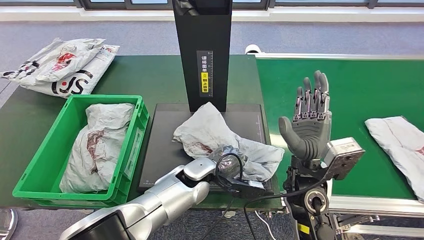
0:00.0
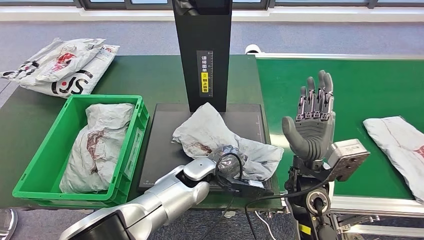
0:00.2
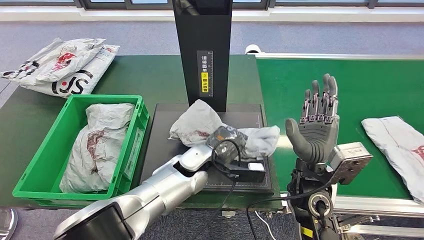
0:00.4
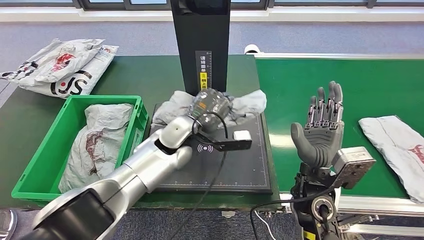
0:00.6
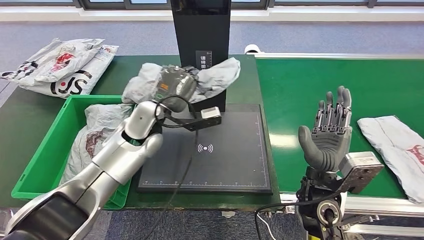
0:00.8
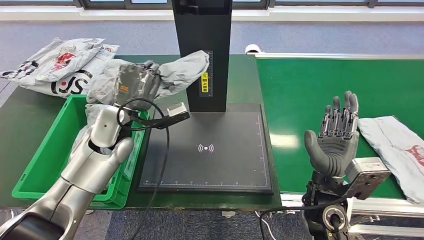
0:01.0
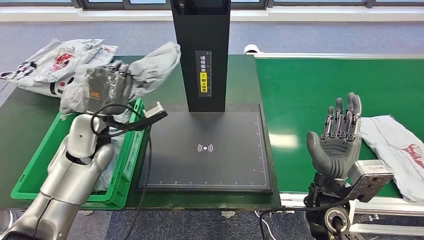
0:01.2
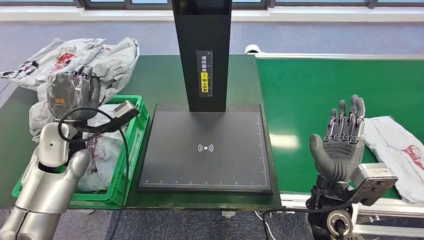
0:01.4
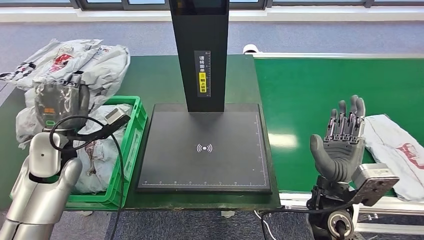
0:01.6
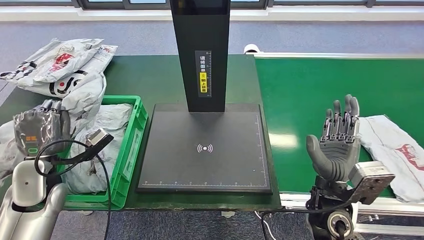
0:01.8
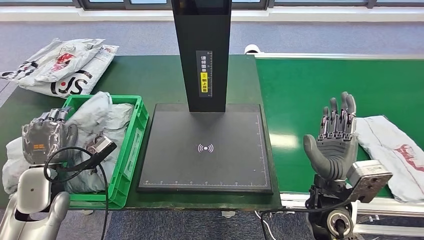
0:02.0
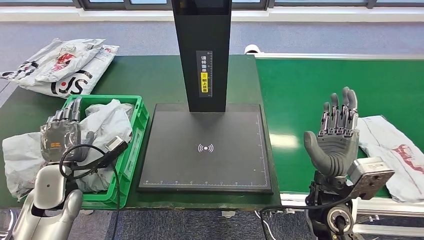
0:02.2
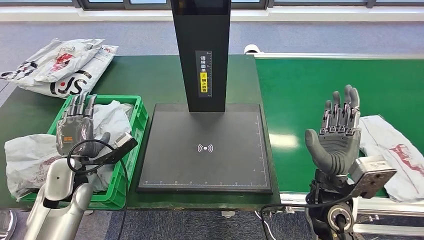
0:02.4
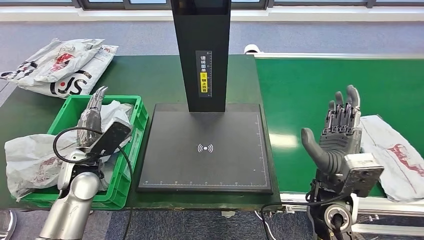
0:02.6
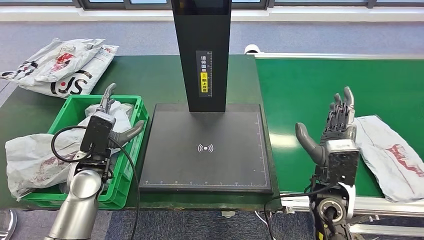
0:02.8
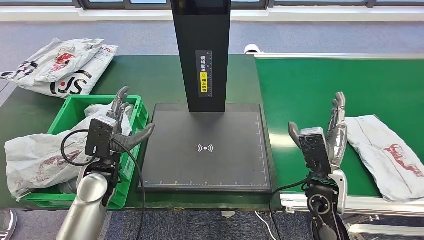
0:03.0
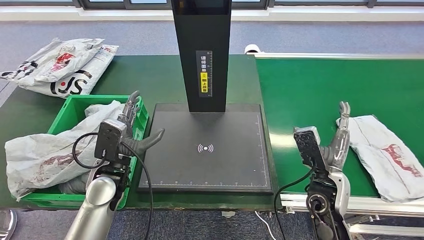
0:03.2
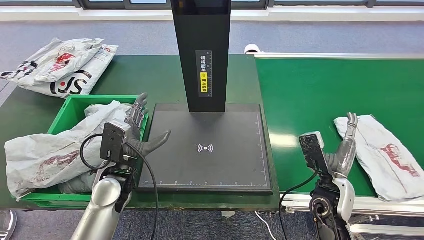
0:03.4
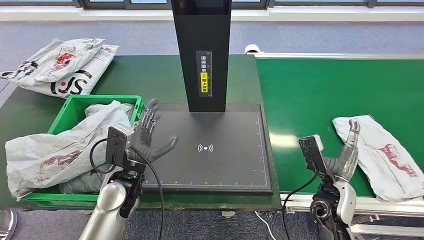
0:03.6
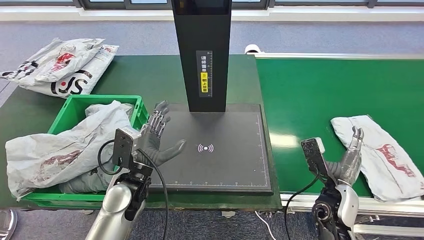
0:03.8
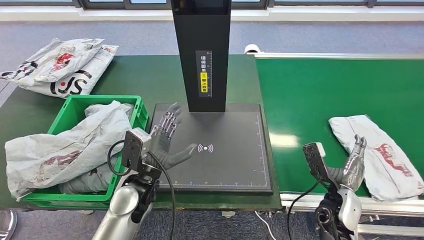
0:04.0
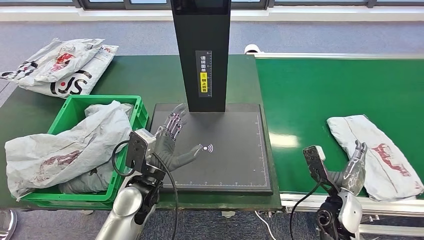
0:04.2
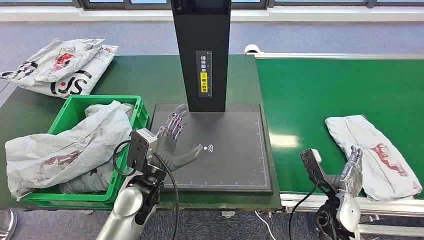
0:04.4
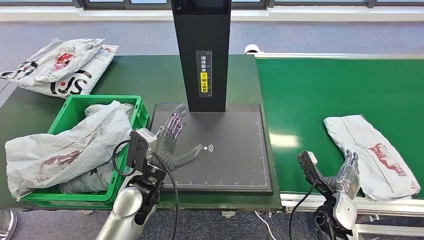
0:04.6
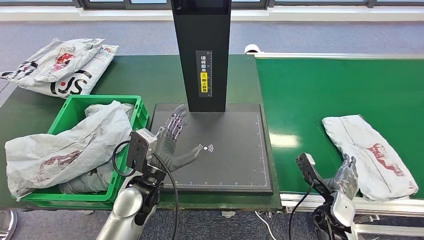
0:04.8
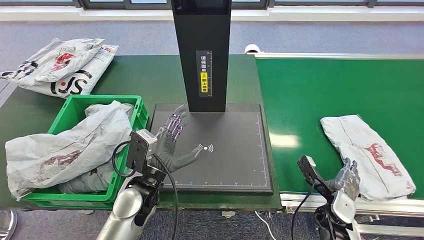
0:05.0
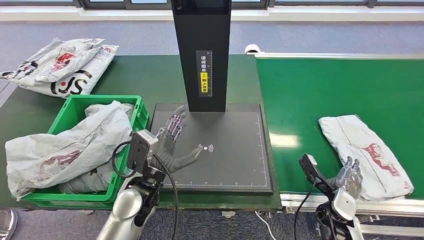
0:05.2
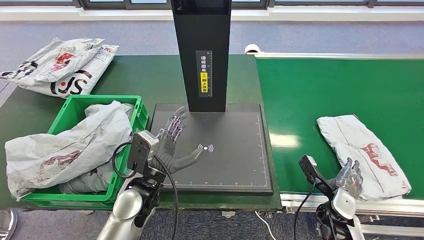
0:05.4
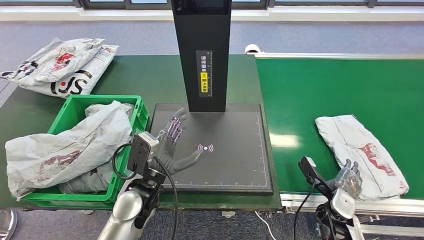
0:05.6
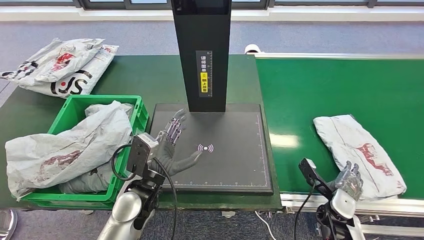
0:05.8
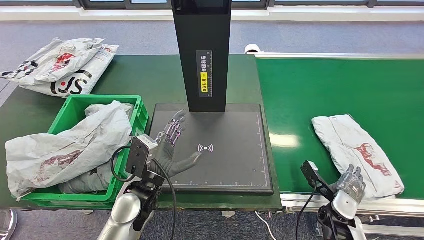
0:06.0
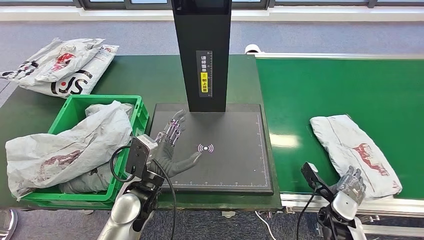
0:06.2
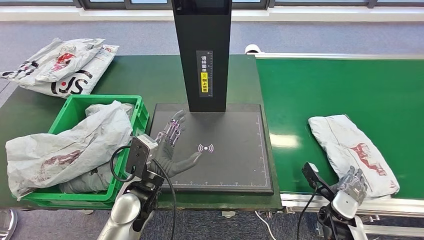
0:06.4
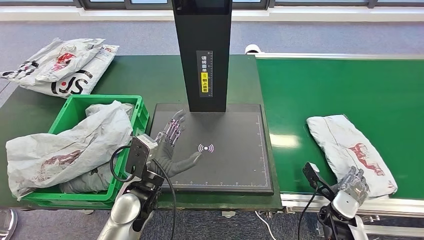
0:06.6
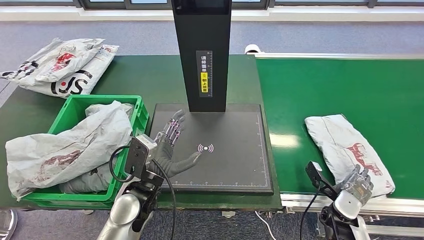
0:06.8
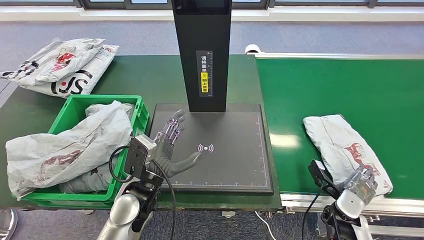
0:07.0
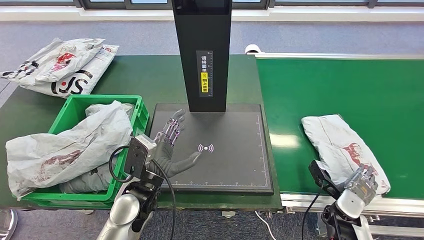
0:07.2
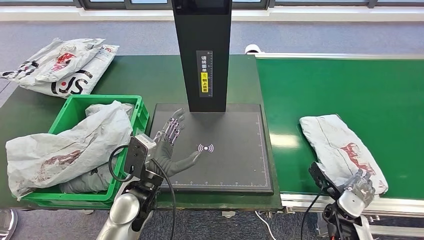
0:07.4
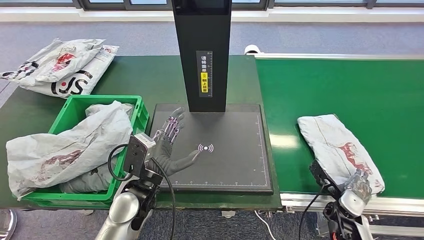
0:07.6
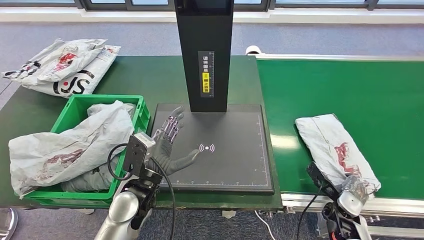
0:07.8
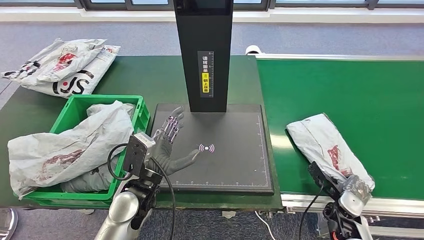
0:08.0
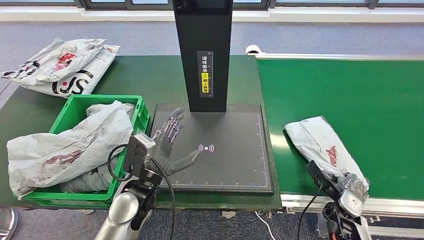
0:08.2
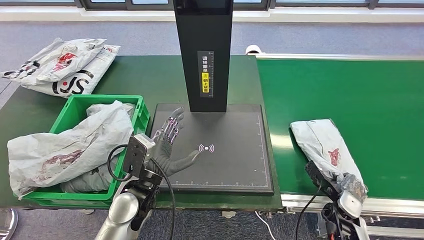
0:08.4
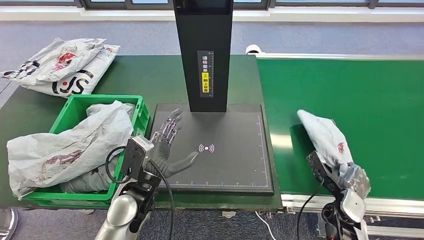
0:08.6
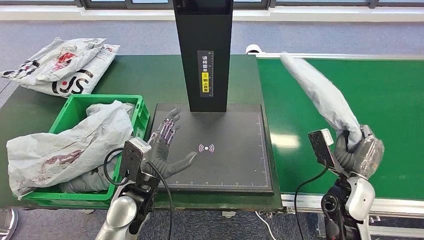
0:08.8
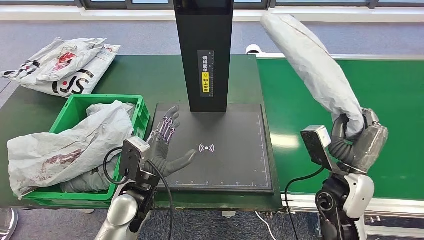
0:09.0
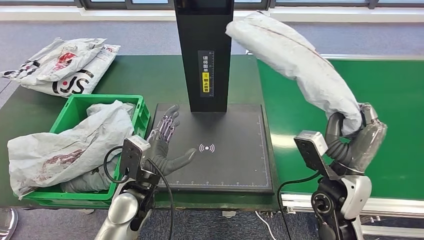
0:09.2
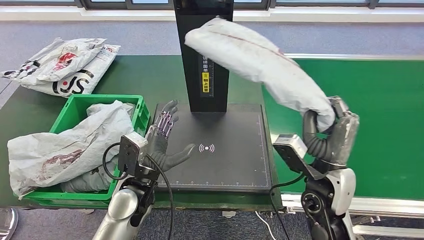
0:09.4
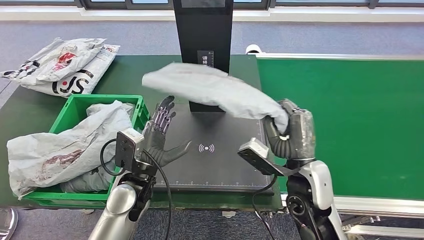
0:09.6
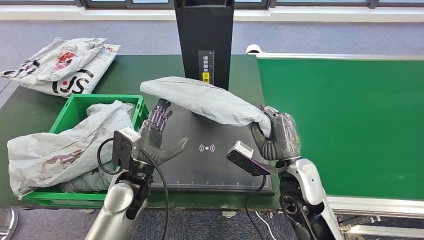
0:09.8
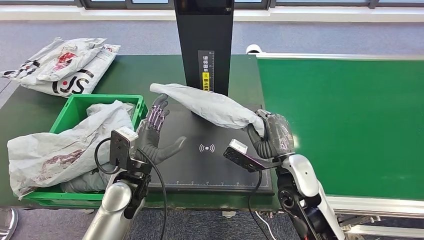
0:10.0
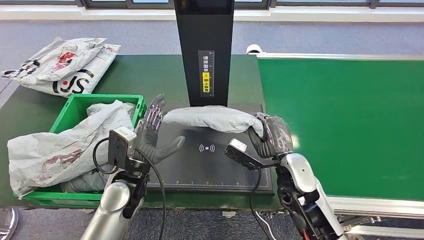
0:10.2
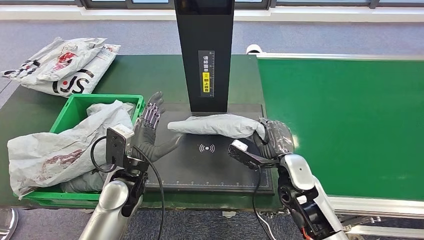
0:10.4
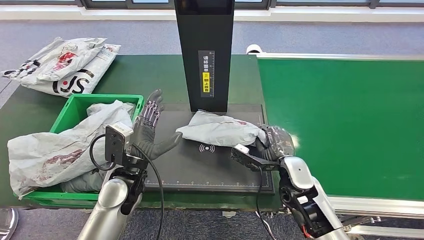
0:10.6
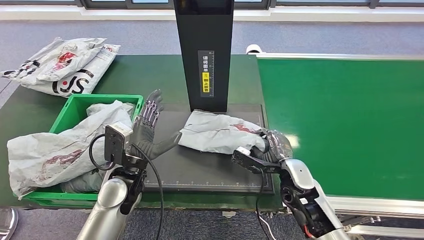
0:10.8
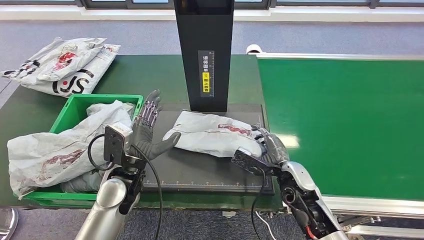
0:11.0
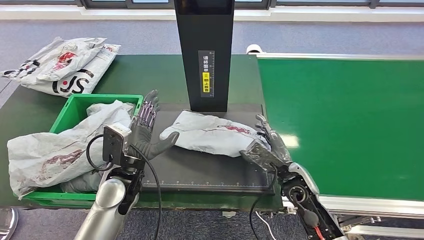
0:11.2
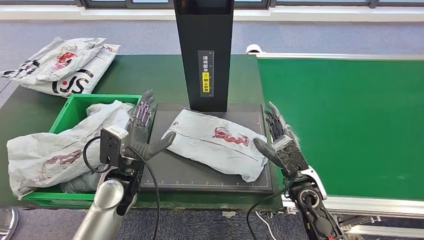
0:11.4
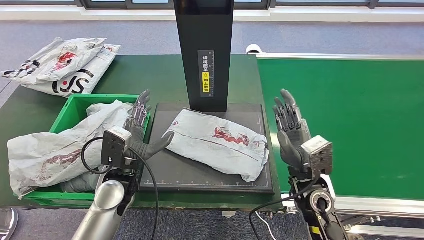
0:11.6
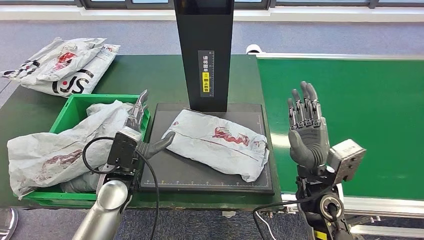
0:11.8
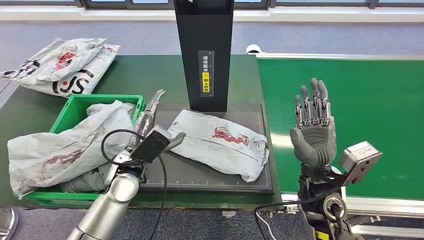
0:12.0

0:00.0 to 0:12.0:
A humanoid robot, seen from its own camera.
Step, 0:01.4 to 0:04.2: Place the parcel into the delivery box.
Step, 0:07.2 to 0:09.2: Pick up the parcel from the conveyor belt.
Step, 0:09.6 to 0:11.8: Place the parcel onto the inbound machine.
0:03.0 to 0:04.4: The right hand moves downward and to the right, approximately 15 cm; the left hand shifts roughly 10 cm to the right.
0:04.4 to 0:06.0: The right hand moves roughly 5 cm.
0:06.0 to 0:07.6: There are only small adjustments of the hands.
0:07.6 to 0:09.0: The right hand shifts approximately 15 cm upward and to the left.
0:10.4 to 0:12.0: The right hand goes approximately 5 cm upward.

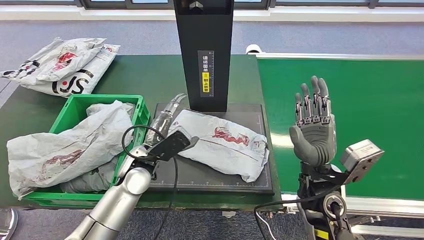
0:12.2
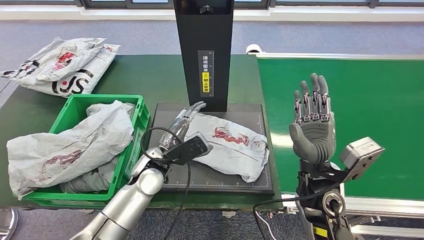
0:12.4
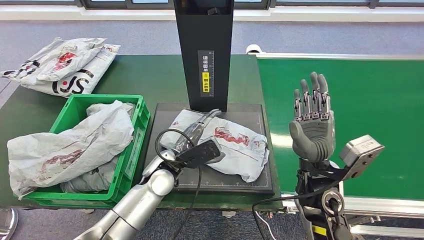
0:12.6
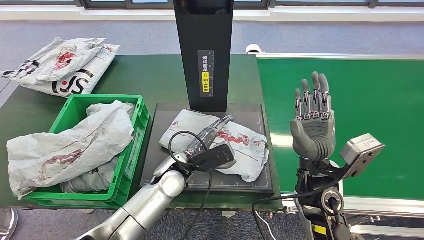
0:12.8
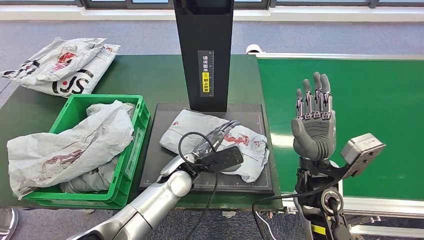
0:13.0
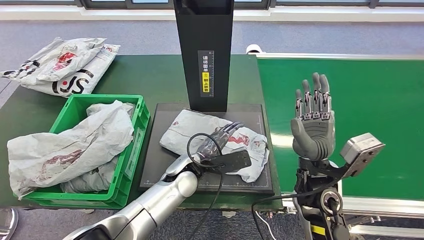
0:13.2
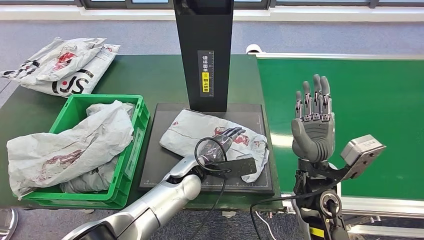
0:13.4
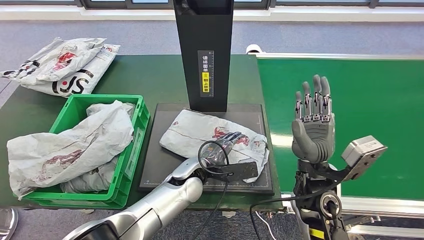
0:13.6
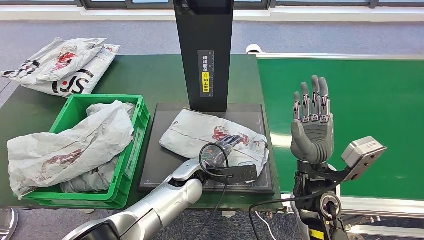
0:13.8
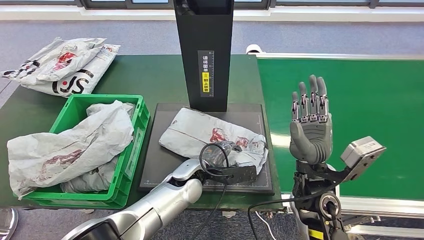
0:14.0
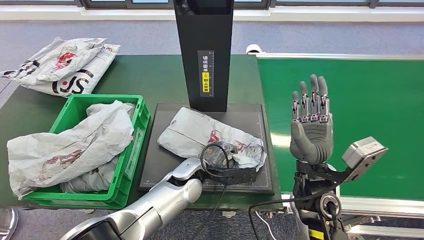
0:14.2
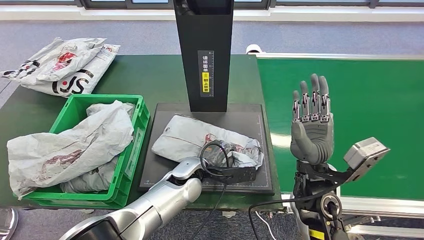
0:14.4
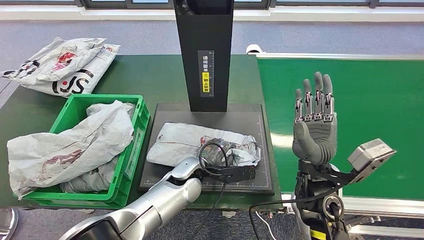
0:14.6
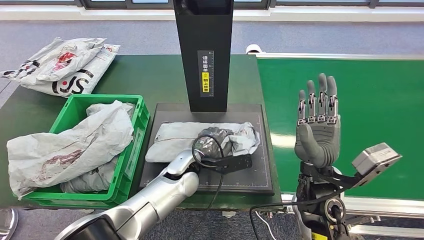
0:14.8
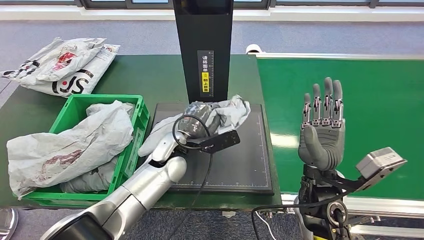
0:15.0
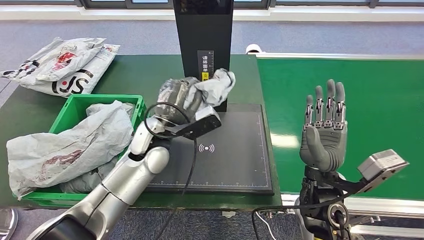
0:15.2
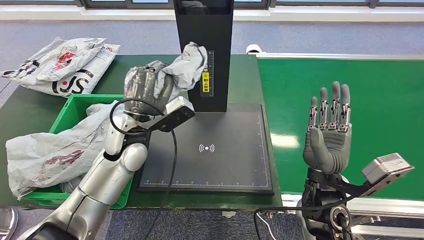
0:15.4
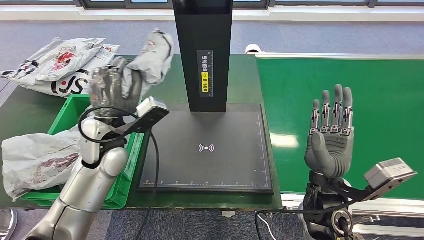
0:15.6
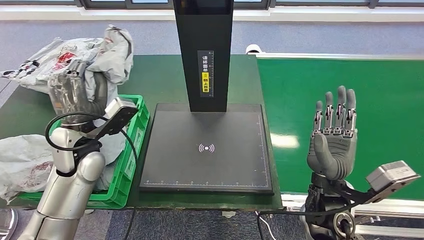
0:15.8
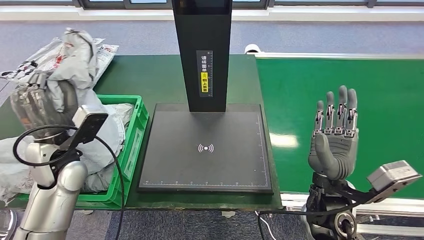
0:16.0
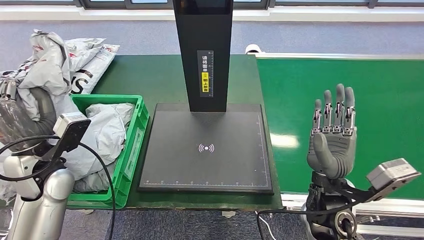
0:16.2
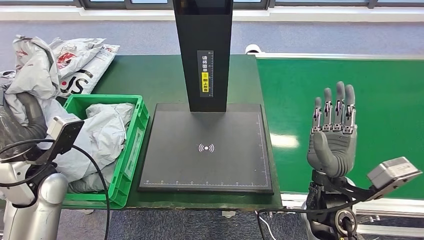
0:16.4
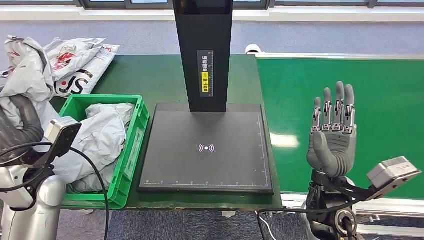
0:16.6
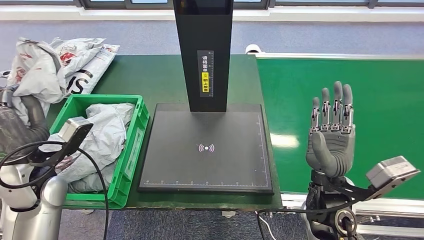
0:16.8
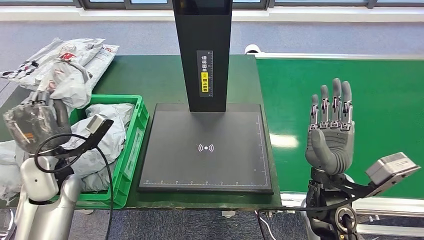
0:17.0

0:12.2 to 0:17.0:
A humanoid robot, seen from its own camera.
Step, 0:12.2 to 0:15.6: Pick up the parcel from the inbound machine.
0:12.2 to 0:13.8: The left hand shifts approximately 10 cm to the right.
